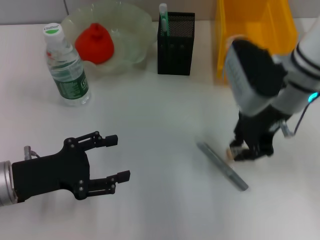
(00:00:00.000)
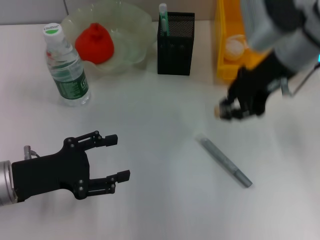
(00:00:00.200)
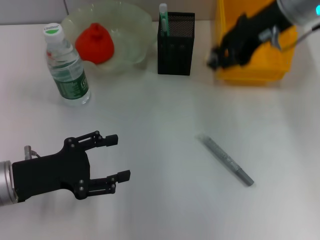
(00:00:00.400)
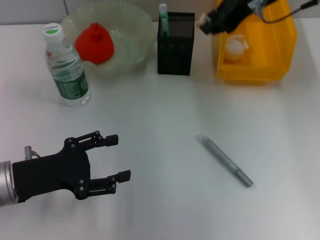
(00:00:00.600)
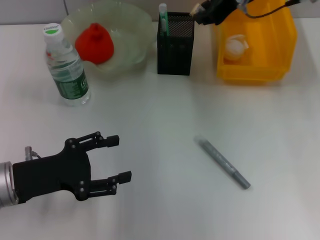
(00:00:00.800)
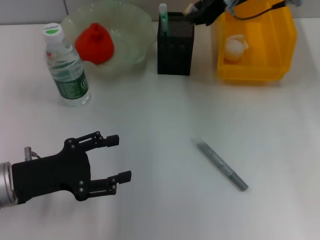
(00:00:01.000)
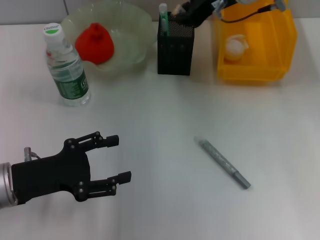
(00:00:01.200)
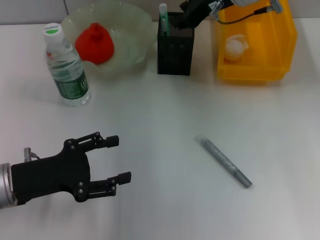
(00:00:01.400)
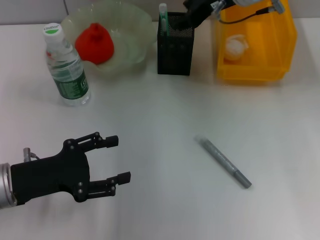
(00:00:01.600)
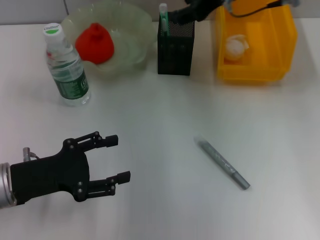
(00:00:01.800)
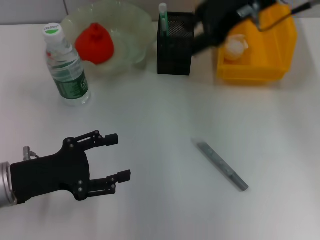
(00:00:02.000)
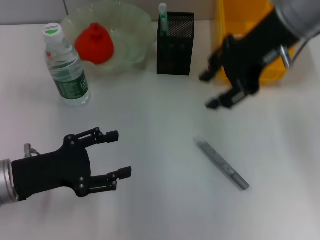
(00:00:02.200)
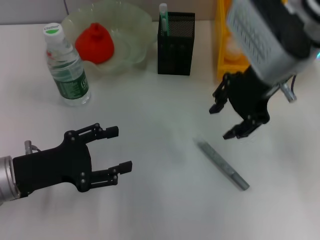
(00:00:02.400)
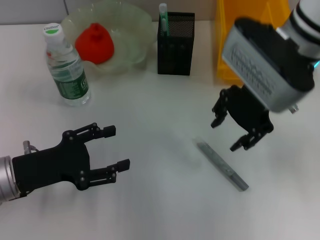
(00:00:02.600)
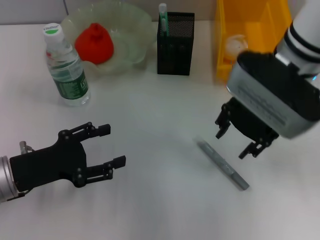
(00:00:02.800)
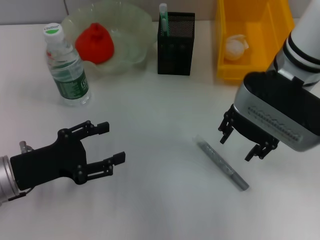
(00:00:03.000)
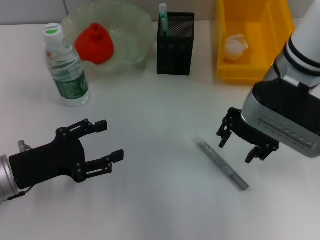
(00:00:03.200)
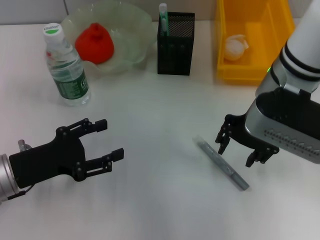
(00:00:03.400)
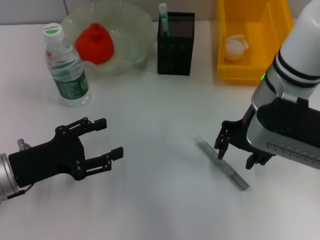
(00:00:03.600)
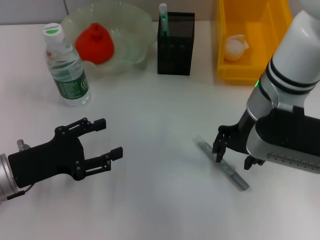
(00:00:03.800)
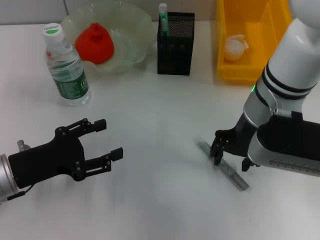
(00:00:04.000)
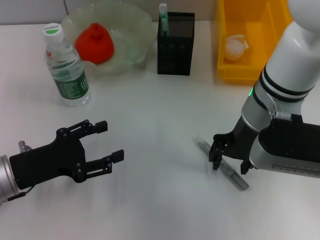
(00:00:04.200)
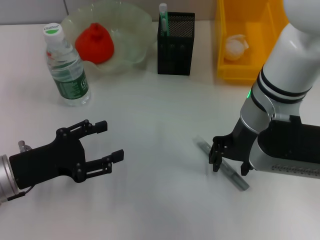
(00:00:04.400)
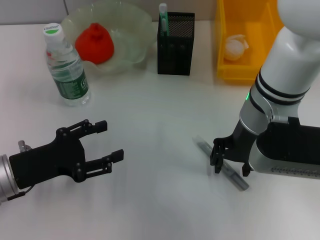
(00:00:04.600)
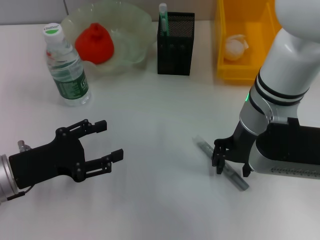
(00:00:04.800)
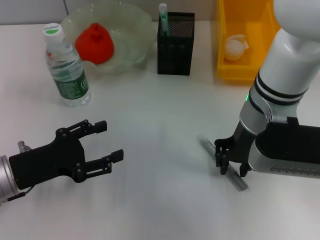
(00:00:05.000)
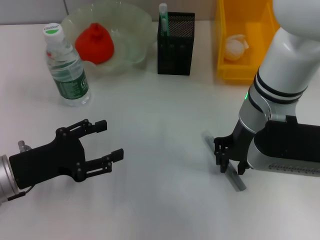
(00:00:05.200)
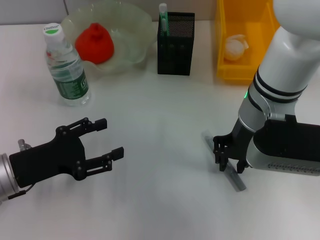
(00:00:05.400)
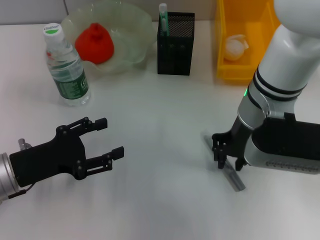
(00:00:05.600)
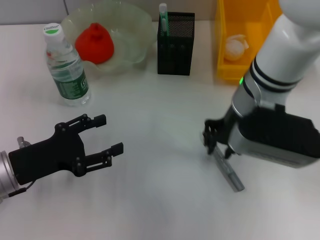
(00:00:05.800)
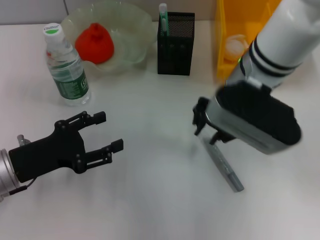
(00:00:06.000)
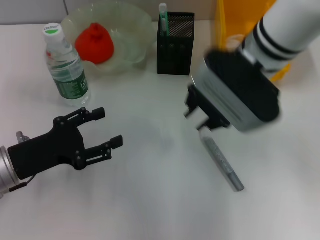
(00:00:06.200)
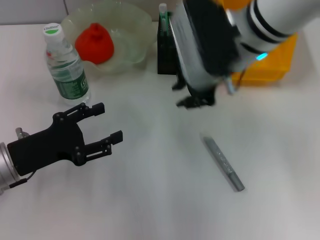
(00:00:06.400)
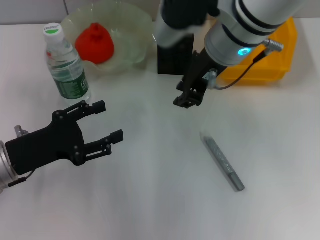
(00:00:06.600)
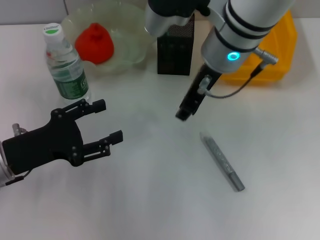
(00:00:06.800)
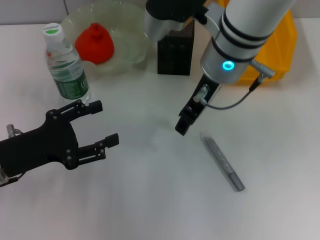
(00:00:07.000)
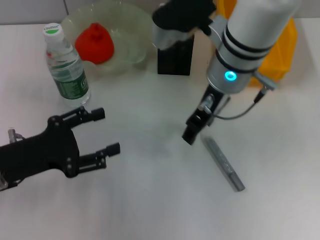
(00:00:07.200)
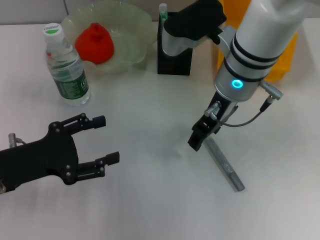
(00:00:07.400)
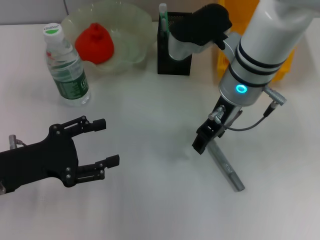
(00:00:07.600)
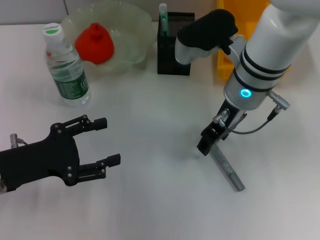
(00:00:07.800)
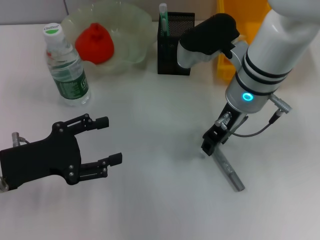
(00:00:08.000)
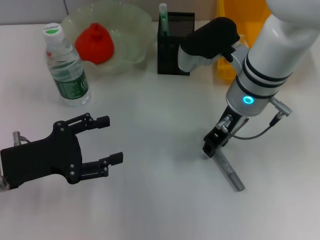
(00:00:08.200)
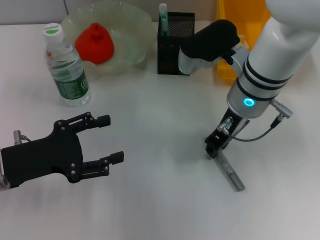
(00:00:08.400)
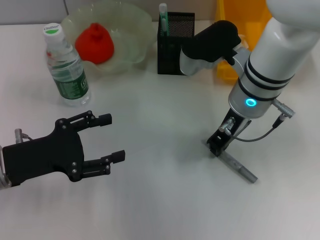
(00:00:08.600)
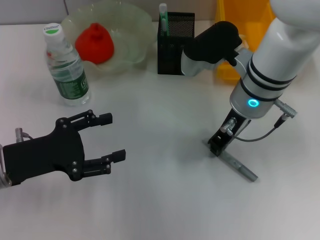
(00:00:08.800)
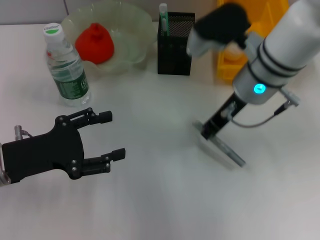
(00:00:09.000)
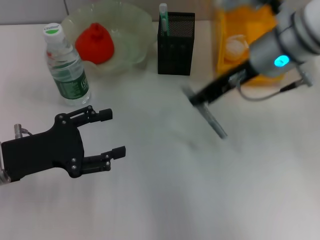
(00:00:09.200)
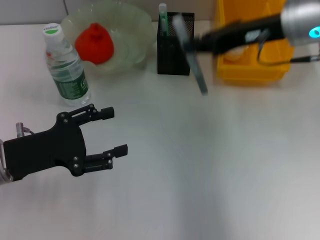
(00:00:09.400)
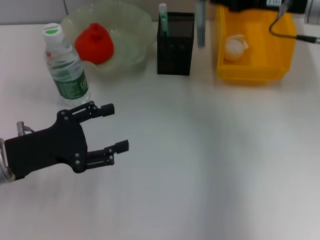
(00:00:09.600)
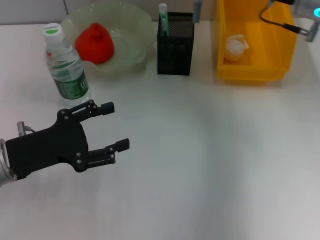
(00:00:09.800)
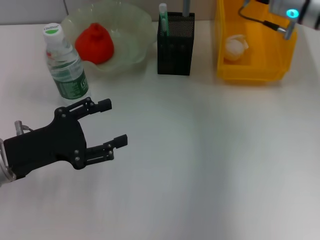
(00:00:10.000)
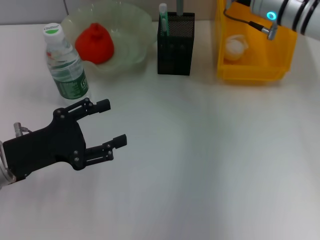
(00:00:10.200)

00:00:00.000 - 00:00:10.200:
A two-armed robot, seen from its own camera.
Step, 00:00:00.000 - 00:00:01.600: Put the eraser into the pen holder with the right hand.
Step, 00:00:01.800 - 00:00:08.400: Grab the gray glue with the right hand.
00:00:00.000 - 00:00:01.400: The right gripper travels forward and upward by roughly 10 cm.
00:00:01.400 - 00:00:03.000: The right gripper shifts approximately 10 cm backward.
00:00:04.400 - 00:00:05.800: The right gripper closes its fingers.
00:00:05.800 - 00:00:07.200: The right gripper opens up.
00:00:07.200 - 00:00:08.800: The right gripper moves roughly 5 cm, and closes its fingers.
00:00:08.800 - 00:00:10.200: The right gripper is displaced forward and to the right by roughly 10 cm.

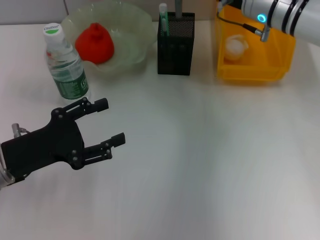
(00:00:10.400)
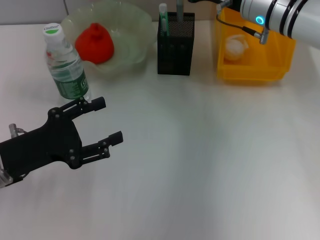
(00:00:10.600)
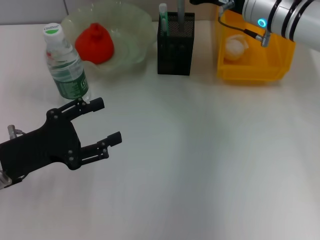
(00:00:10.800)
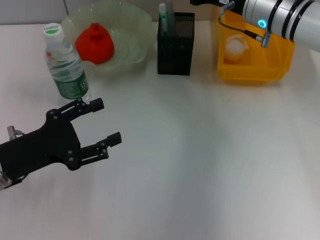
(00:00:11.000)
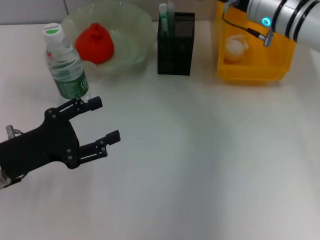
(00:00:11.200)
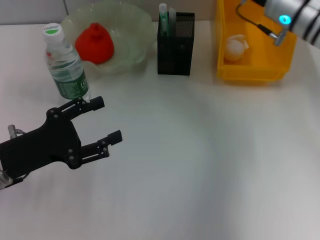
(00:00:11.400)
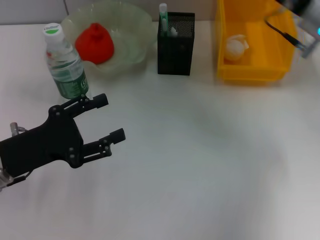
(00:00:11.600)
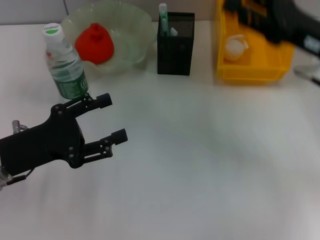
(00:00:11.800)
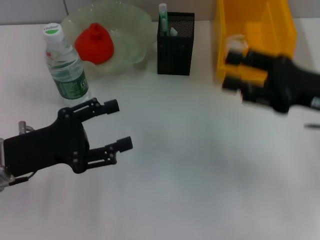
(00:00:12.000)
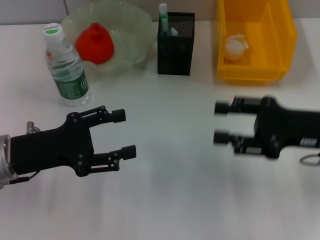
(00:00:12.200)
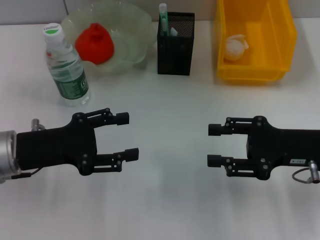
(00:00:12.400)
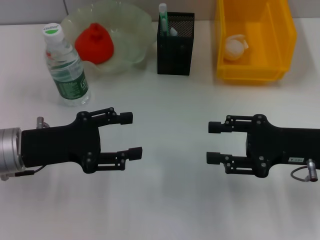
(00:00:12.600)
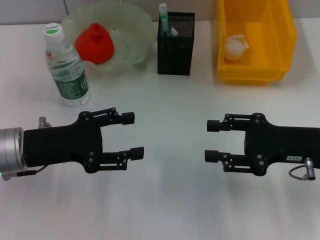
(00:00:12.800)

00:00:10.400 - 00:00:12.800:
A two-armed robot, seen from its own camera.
00:00:10.400 - 00:00:11.600: The right gripper is displaced to the right and backward by some 10 cm, and opens its fingers.
00:00:11.600 - 00:00:12.800: The right gripper is displaced backward and downward by approximately 15 cm.
